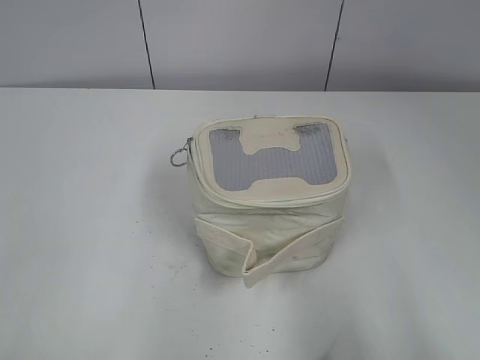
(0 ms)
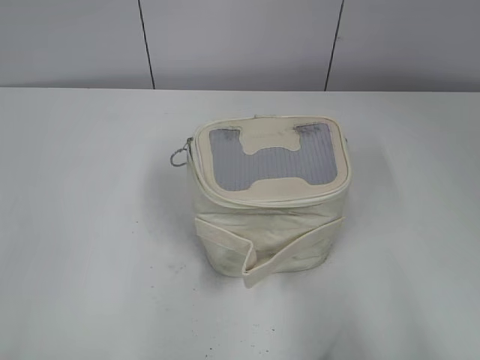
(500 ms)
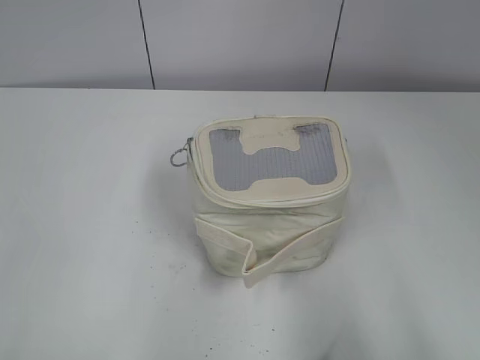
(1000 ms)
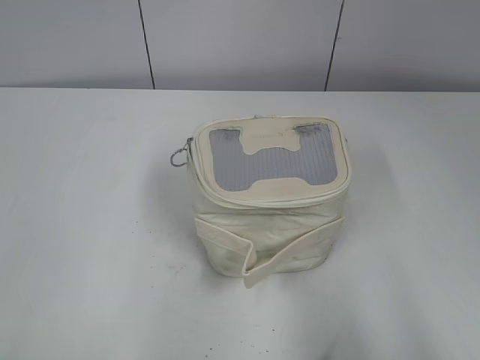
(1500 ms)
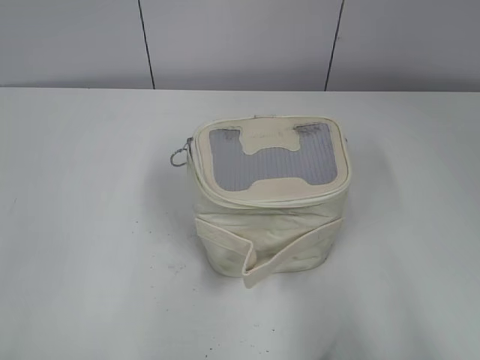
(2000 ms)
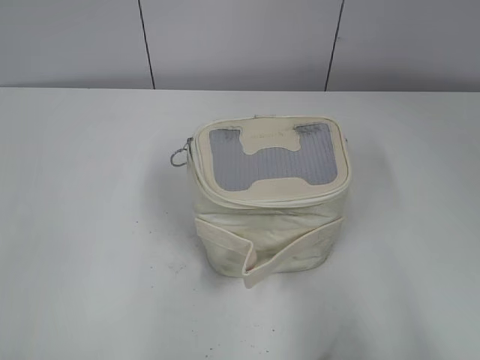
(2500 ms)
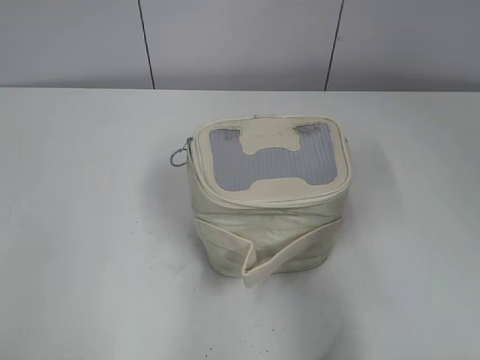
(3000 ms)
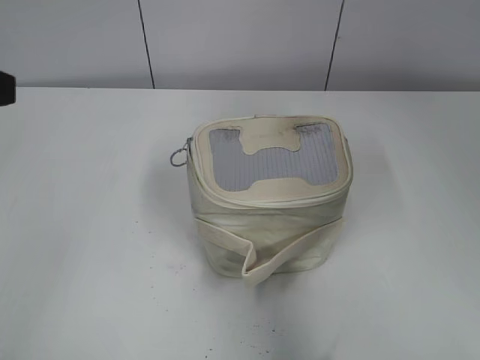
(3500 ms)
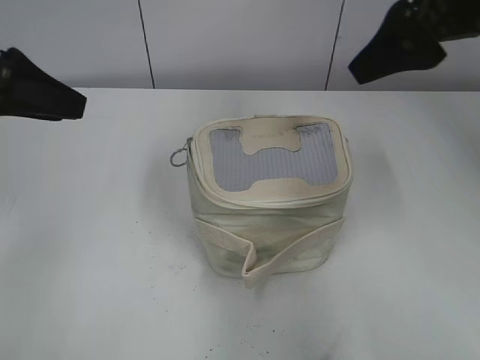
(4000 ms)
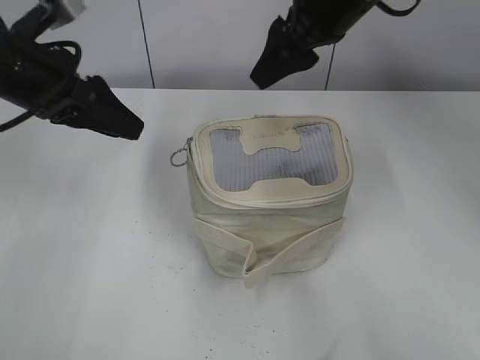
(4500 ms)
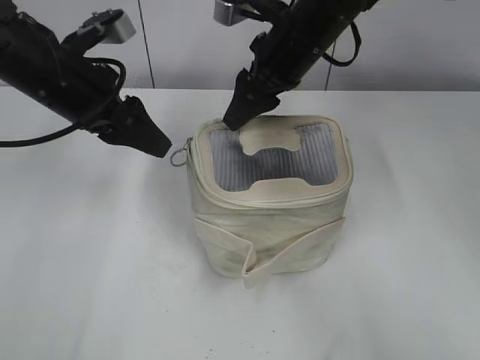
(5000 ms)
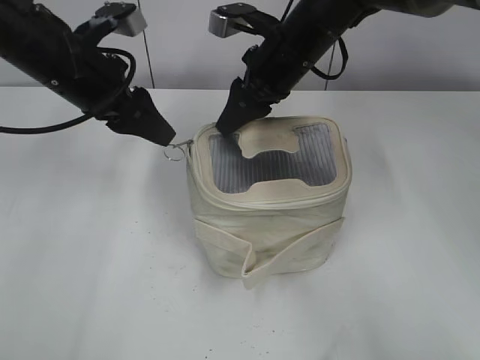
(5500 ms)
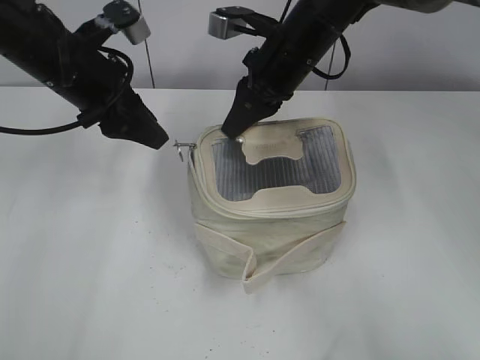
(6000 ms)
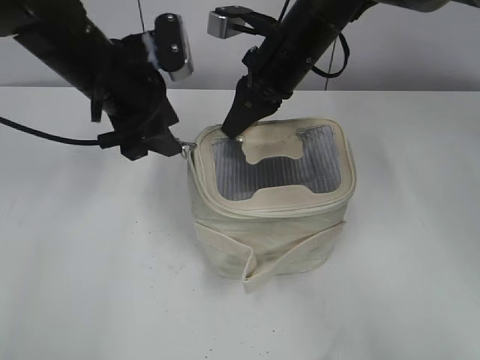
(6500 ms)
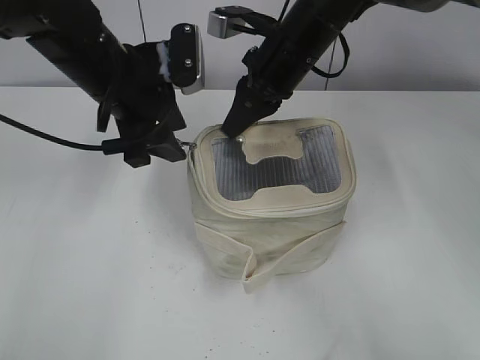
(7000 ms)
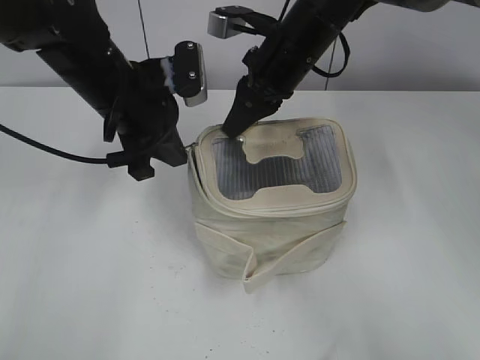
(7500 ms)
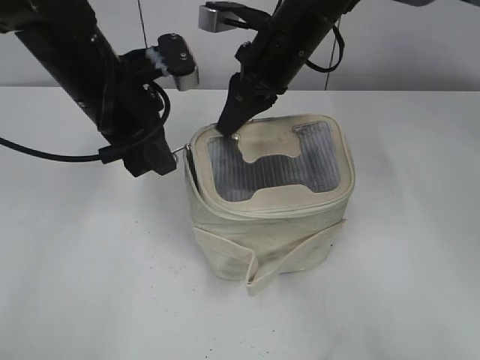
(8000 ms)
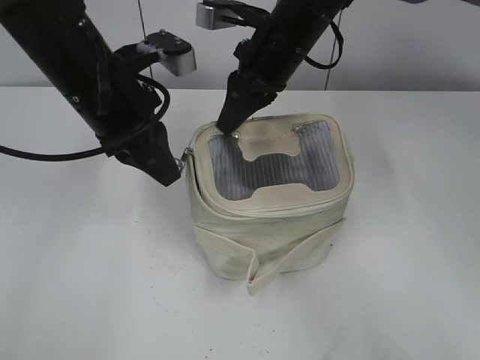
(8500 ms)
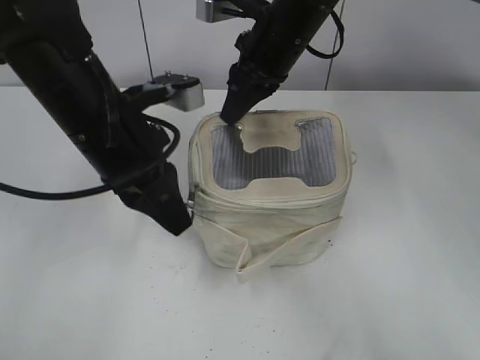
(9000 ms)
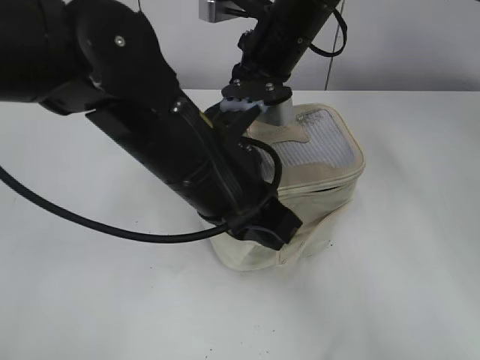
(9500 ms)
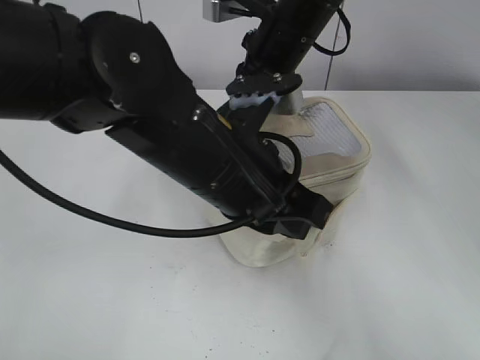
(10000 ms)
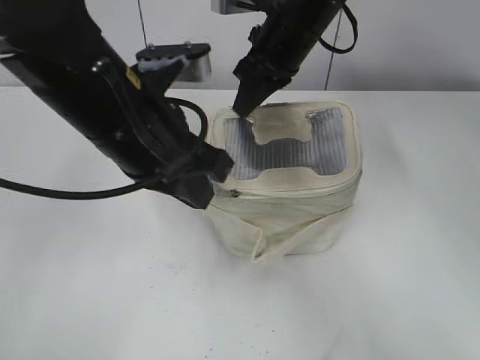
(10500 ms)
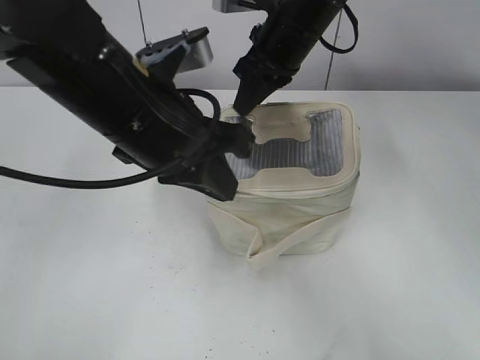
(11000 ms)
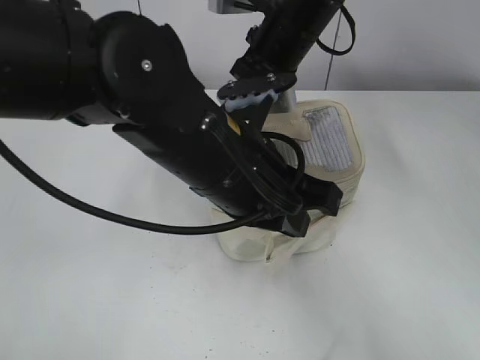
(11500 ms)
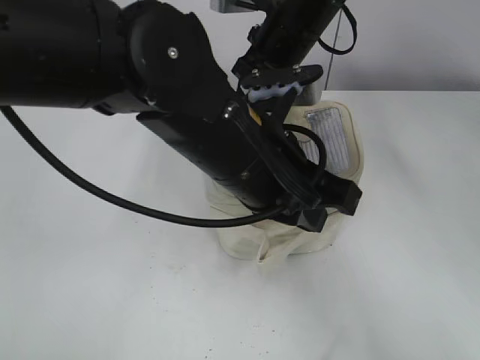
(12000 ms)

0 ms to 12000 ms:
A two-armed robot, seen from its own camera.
2000 ms to 4000 ms: The right gripper heads forward and to the left, covering about 30 cm, while the left gripper heads forward, covering approximately 25 cm.
4000 ms to 6000 ms: The left gripper is displaced forward, to the right and downward by approximately 15 cm. The right gripper shifts roughly 20 cm downward, to the left and forward, and closes up.
6000 ms to 8000 ms: The left gripper shifts by some 5 cm, and closes.
8000 ms to 10000 ms: The left gripper shifts about 15 cm backward and to the right.
10000 ms to 12000 ms: The left gripper reaches some 5 cm to the left, then returns.

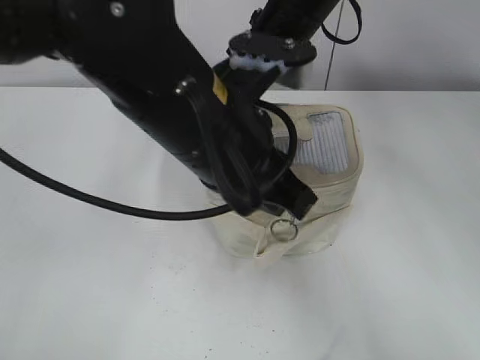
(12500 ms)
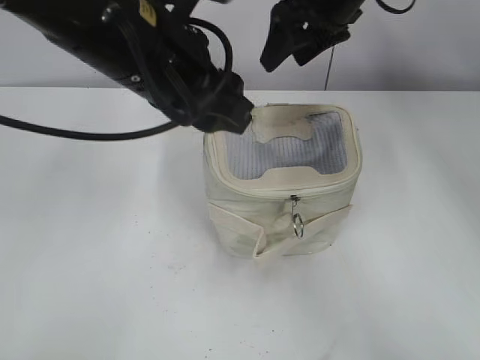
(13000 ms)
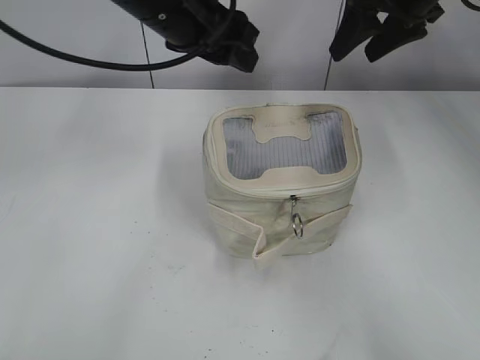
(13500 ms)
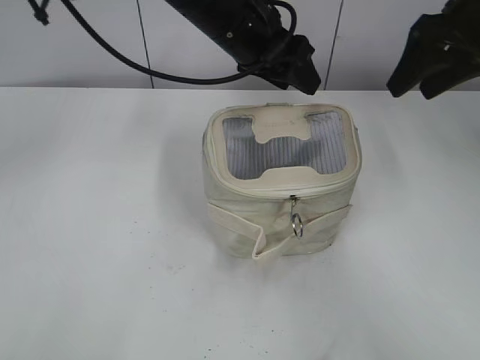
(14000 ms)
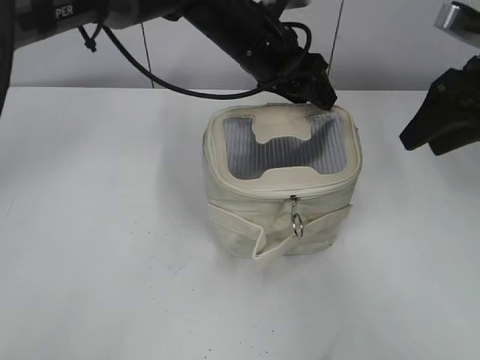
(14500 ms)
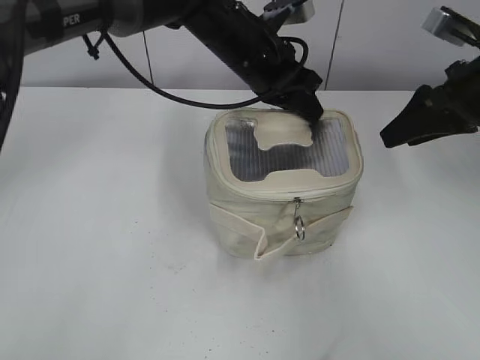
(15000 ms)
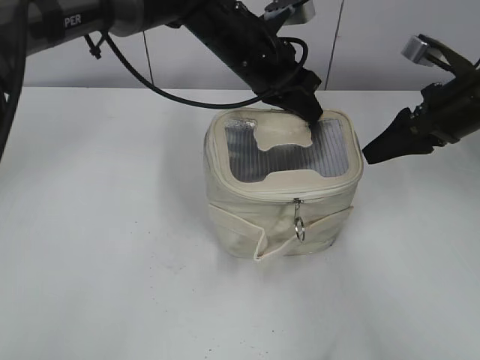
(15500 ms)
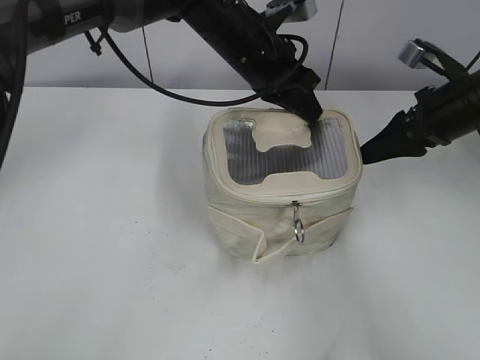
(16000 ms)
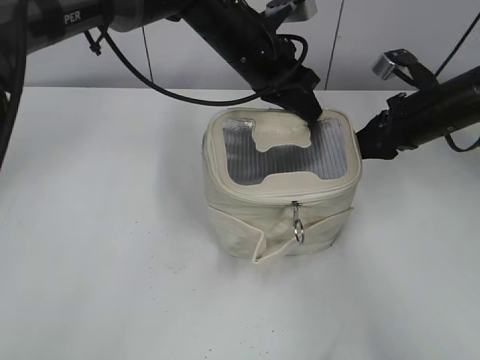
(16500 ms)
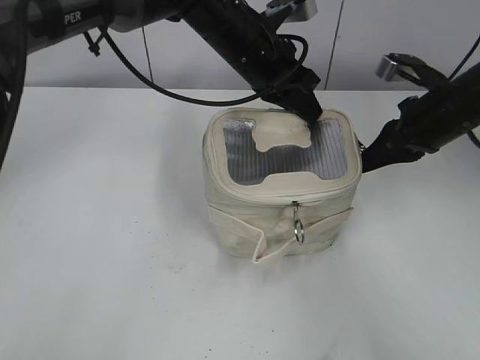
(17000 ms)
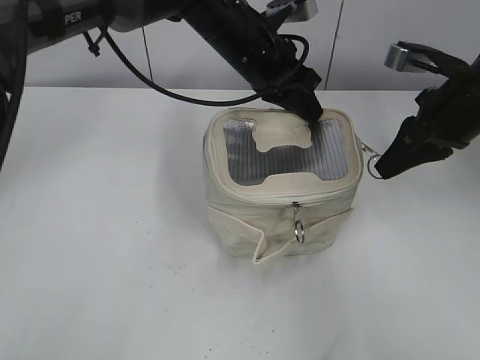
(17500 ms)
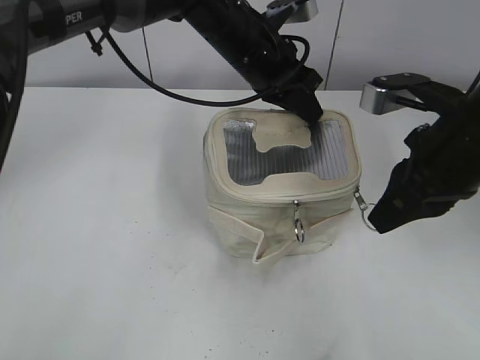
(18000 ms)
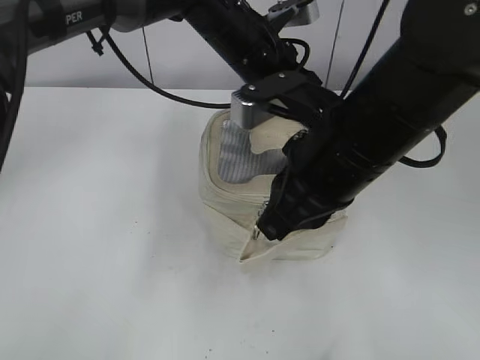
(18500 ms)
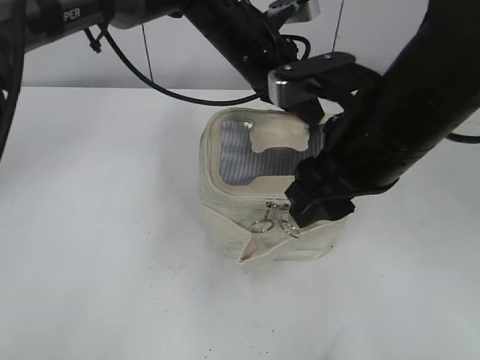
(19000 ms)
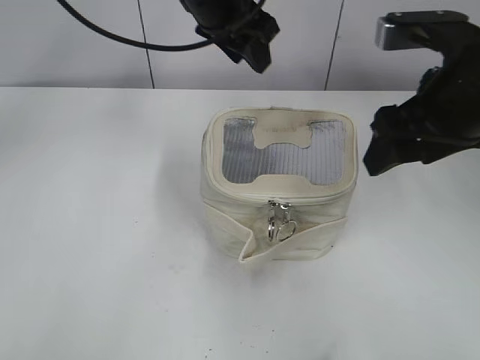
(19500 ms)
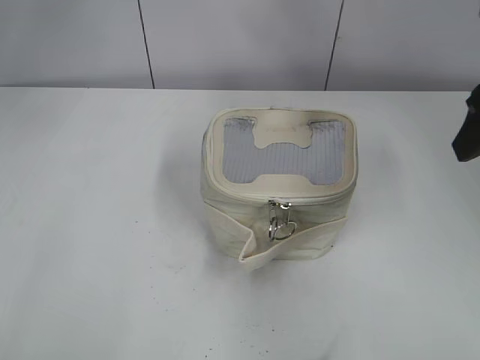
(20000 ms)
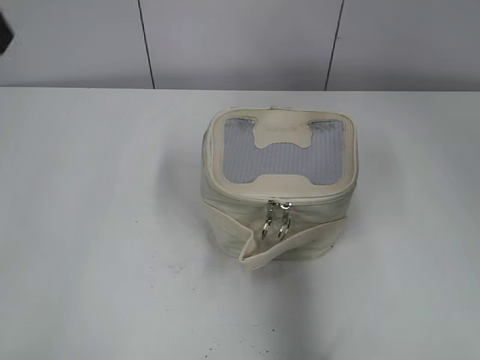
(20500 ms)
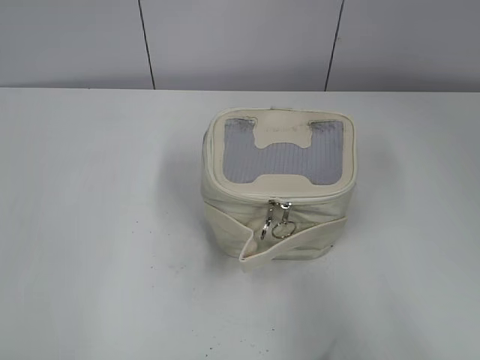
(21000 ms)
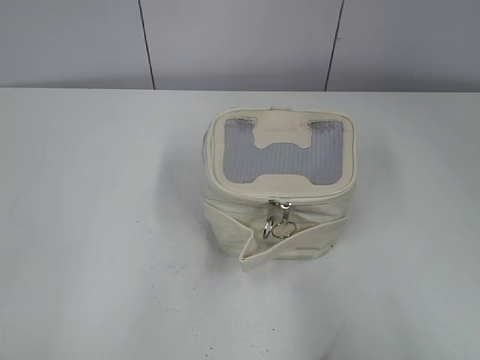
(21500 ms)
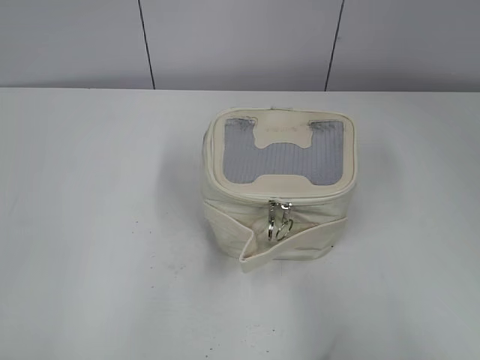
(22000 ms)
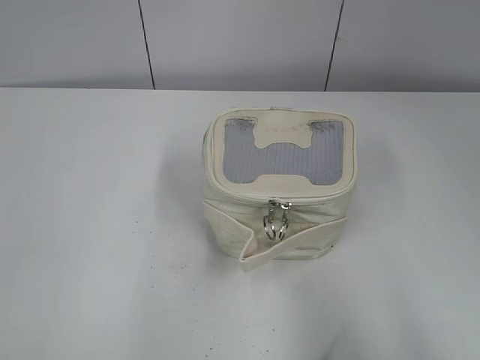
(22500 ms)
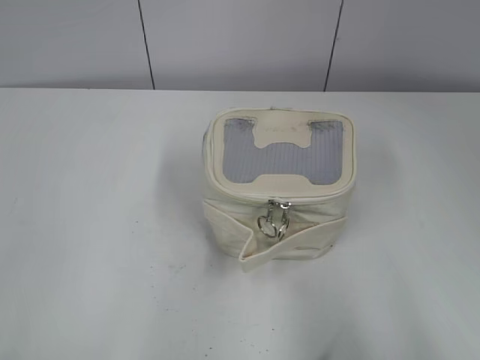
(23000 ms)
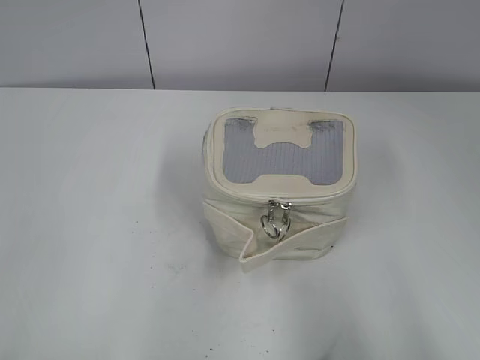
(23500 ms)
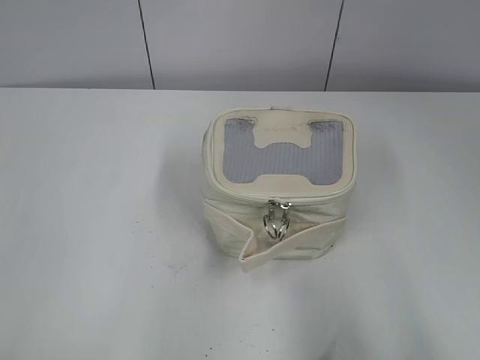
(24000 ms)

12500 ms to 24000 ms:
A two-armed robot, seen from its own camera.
Step, 13000 ms to 18500 ms: Zip up the bag with your right hand.
12500 ms to 14500 ms: The right gripper goes about 20 cm to the right. The left gripper travels forward by roughly 20 cm, and opens its fingers.
14500 ms to 16500 ms: The right gripper moves downward, some 10 cm. The left gripper closes up.
16500 ms to 18500 ms: The right gripper shifts about 25 cm to the left, backward and upward, and closes.
18500 ms to 20000 ms: The left gripper heads upward and to the left, covering approximately 25 cm, and opens its fingers. Meanwhile the right gripper is displaced to the right by about 15 cm, and opens.
20000 ms to 22000 ms: The left gripper moves backward and to the left, about 40 cm. The right gripper goes some 25 cm backward.

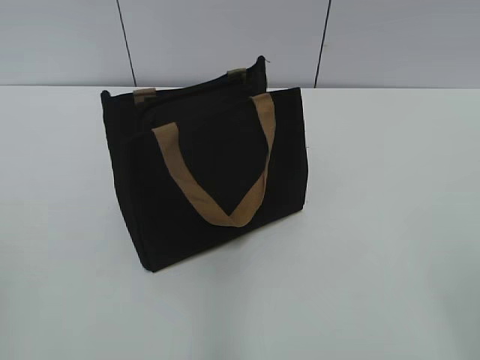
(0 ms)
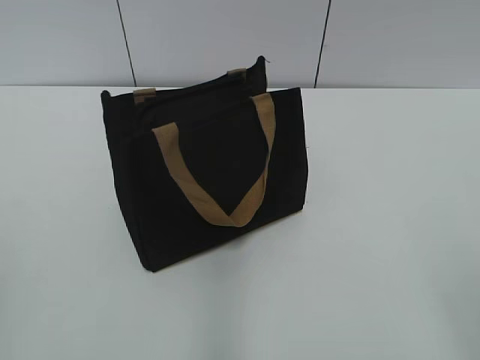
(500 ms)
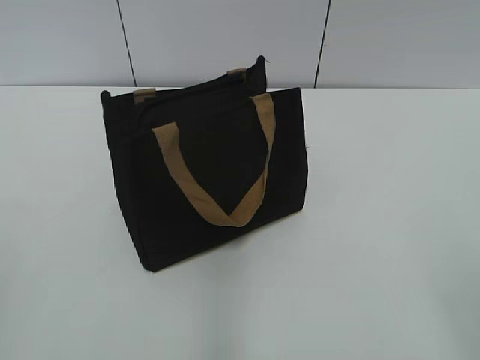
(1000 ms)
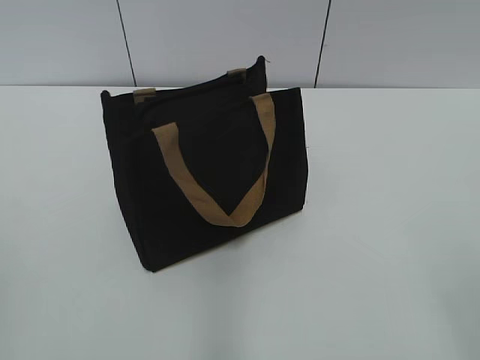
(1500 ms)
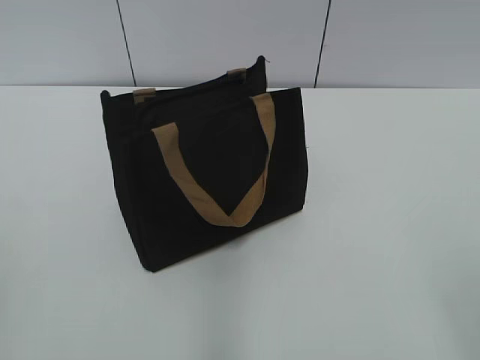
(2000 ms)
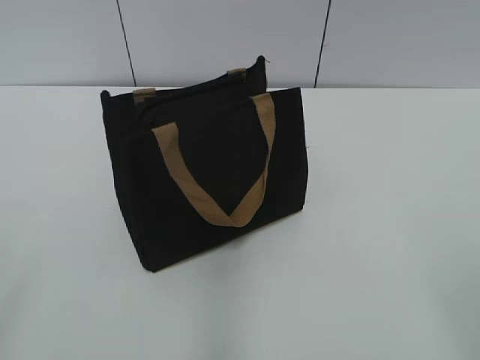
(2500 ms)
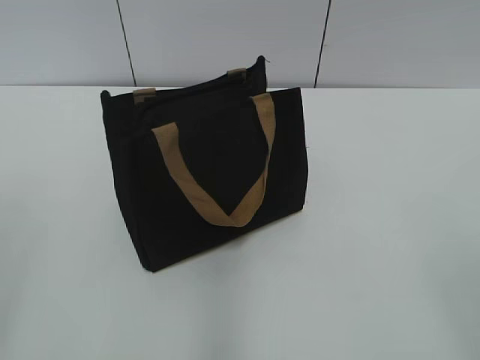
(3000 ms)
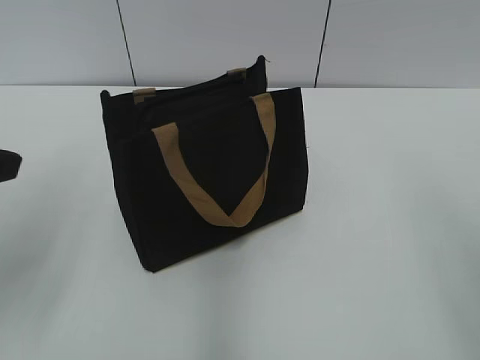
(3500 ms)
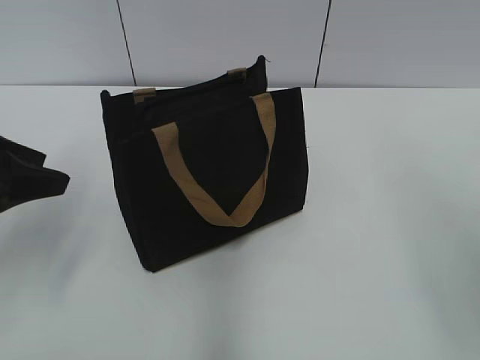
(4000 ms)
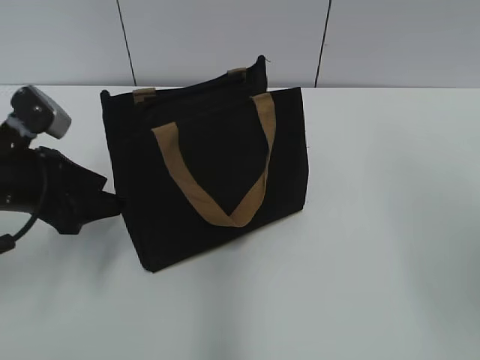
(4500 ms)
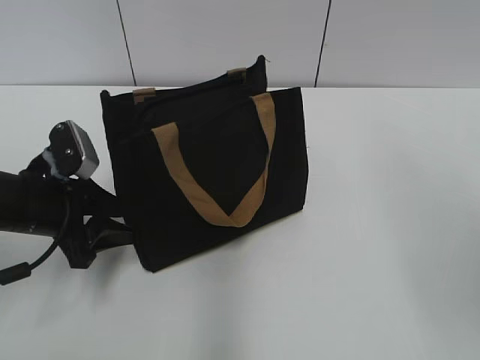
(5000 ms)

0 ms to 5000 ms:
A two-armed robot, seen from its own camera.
2500 ms to 5000 ms: The left gripper moves forward and downward, approximately 30 cm.